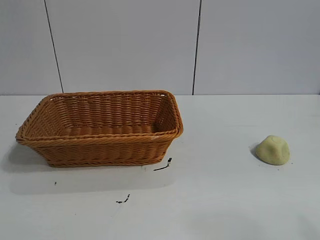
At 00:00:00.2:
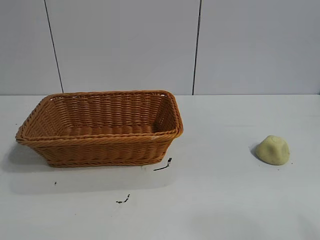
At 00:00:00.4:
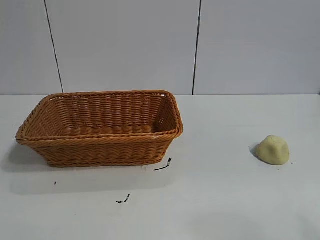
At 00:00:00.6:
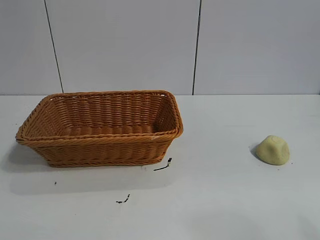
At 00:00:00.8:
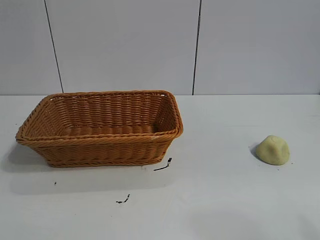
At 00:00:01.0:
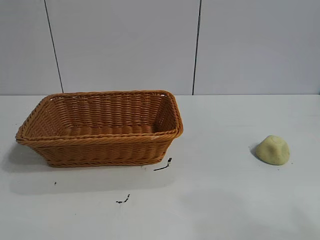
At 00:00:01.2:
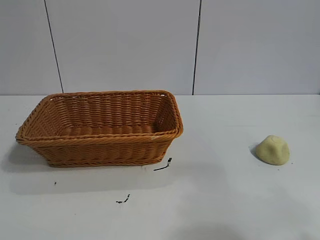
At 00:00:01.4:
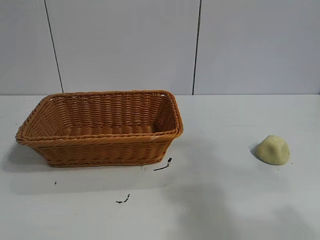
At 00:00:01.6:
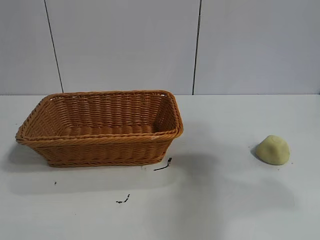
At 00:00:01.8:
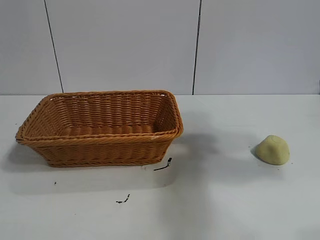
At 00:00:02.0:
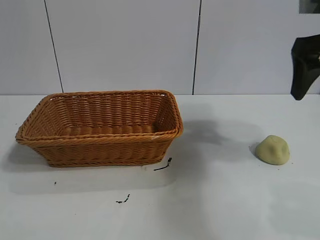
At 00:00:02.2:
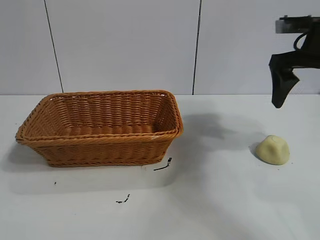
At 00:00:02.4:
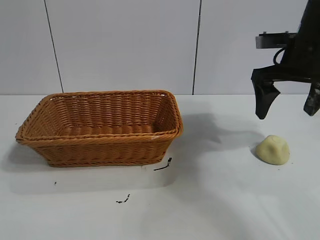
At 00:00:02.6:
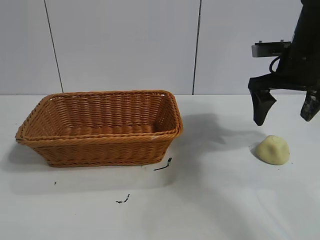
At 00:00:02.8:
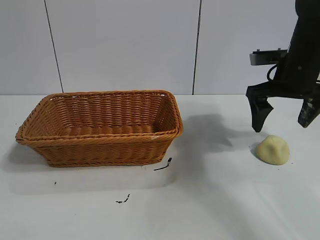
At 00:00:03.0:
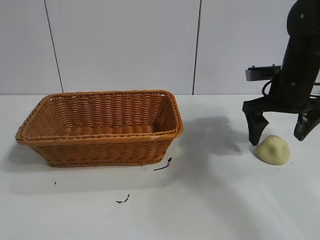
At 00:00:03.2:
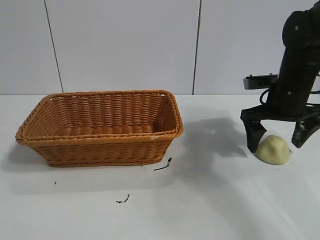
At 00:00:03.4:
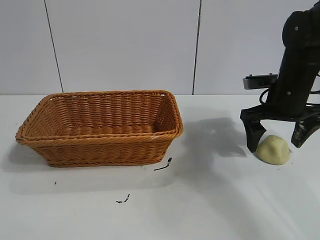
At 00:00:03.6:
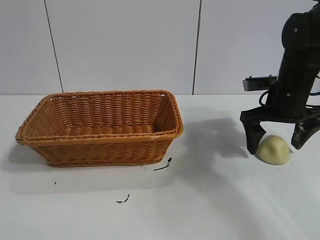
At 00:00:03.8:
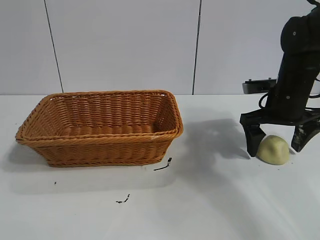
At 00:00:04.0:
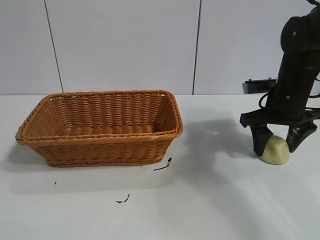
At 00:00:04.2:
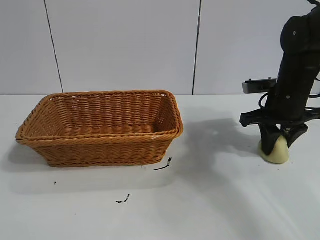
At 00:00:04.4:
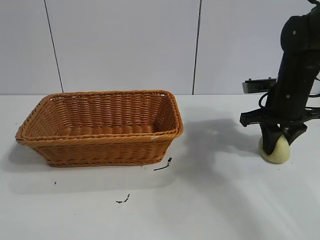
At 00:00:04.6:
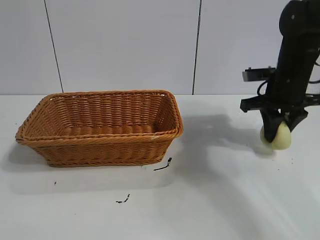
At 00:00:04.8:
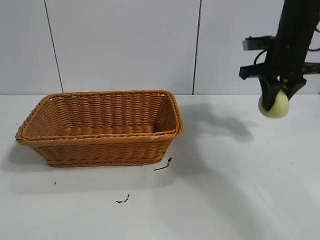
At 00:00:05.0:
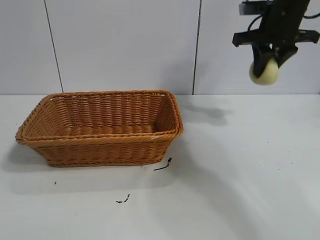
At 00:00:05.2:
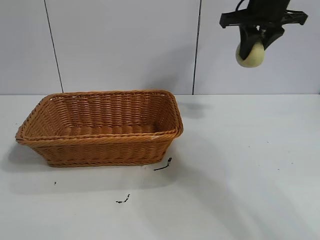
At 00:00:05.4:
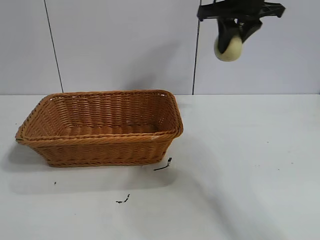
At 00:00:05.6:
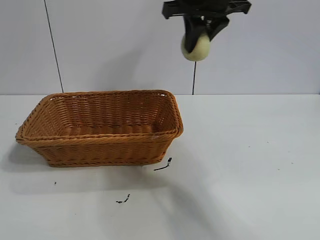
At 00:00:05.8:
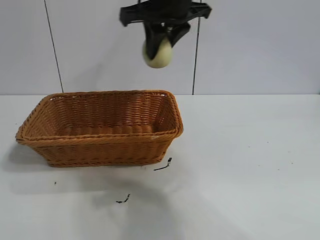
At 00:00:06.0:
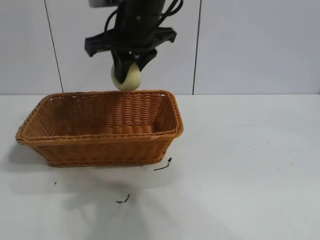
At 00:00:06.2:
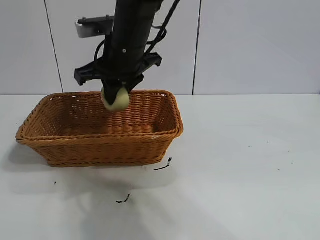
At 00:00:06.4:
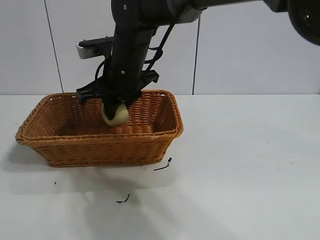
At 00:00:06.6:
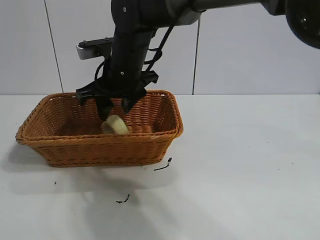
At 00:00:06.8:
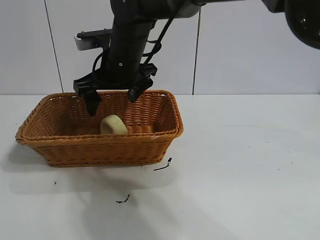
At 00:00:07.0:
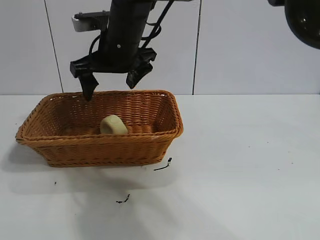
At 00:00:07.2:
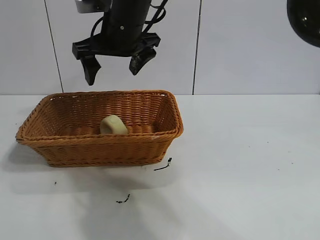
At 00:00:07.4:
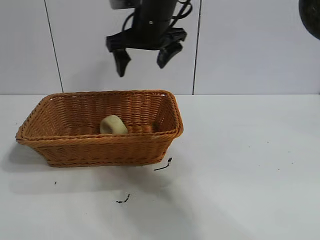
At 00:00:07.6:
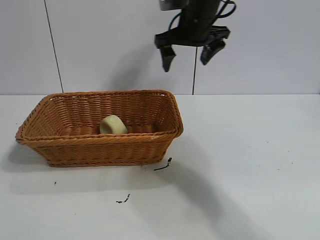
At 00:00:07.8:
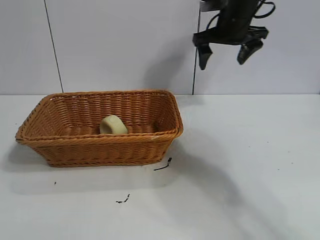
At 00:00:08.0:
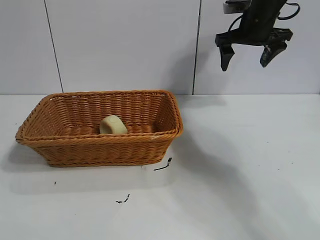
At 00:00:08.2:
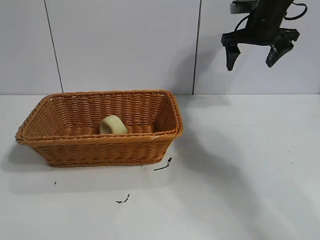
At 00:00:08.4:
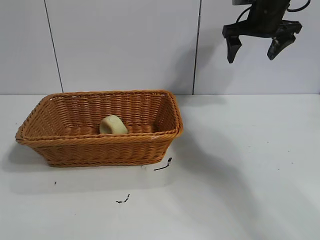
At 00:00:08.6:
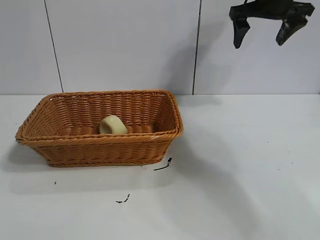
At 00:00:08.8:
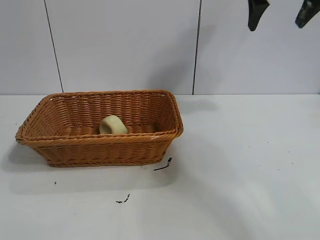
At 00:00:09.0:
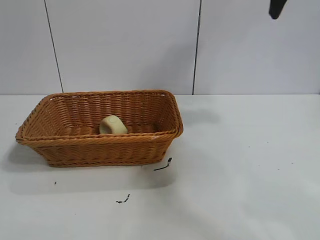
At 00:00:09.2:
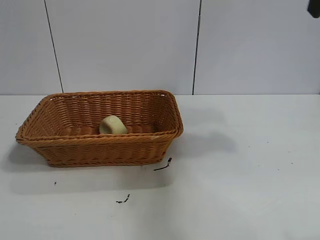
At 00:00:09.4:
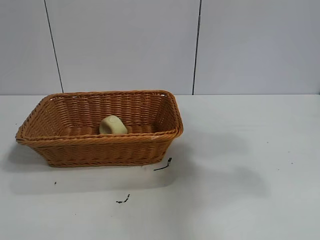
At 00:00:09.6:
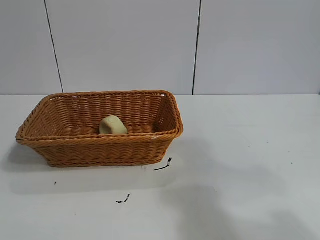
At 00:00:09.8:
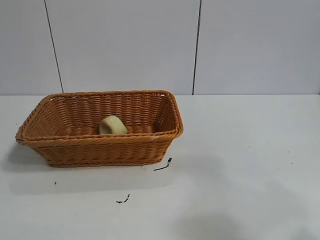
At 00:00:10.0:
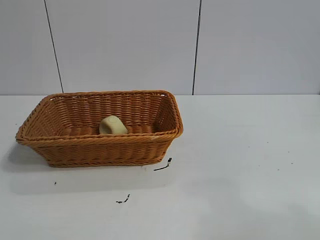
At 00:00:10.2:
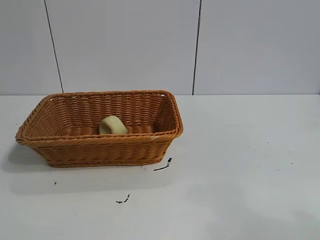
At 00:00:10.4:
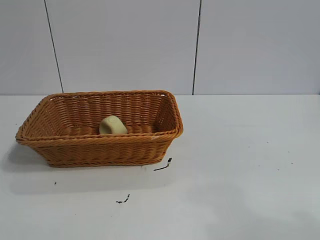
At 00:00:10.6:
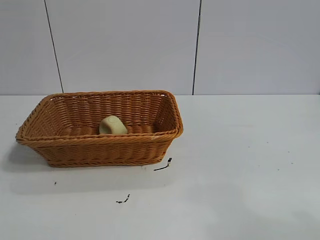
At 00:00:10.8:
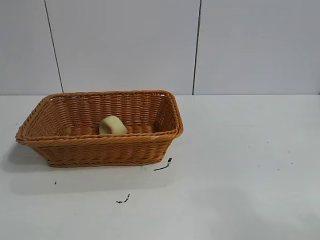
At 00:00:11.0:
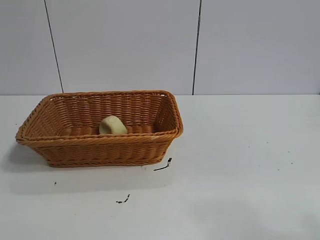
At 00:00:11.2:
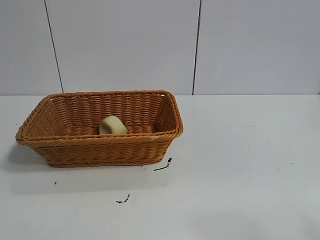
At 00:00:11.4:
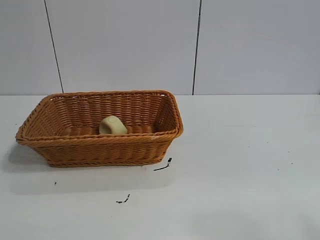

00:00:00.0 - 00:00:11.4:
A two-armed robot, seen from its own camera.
Task of the whole recording: pick up the egg yolk pastry and put it into the basket.
Step, 00:00:01.0 - 00:00:04.2: Grasp egg yolk pastry with right gripper.
Step, 00:00:04.6 - 00:00:06.6: Place the egg yolk pastry in the basket with right gripper.
